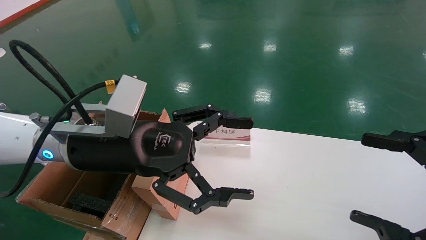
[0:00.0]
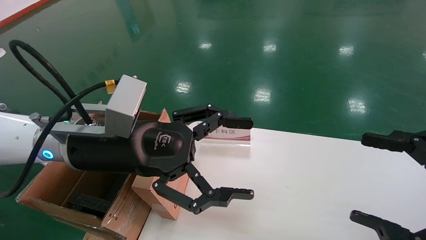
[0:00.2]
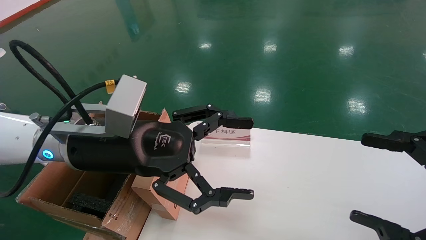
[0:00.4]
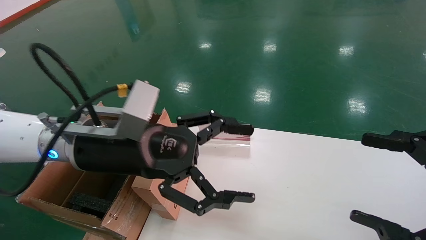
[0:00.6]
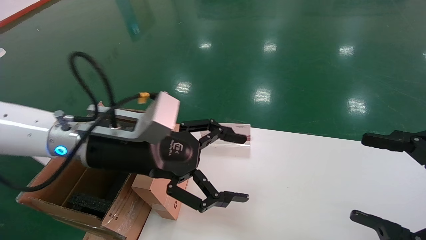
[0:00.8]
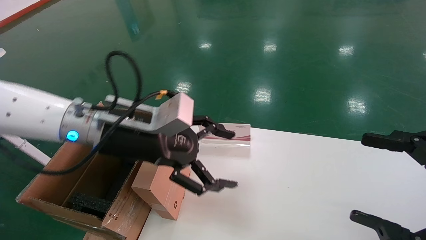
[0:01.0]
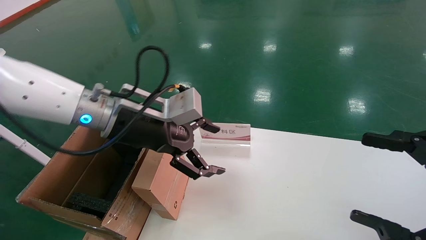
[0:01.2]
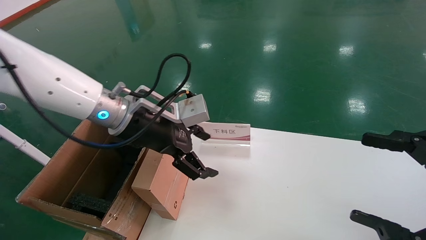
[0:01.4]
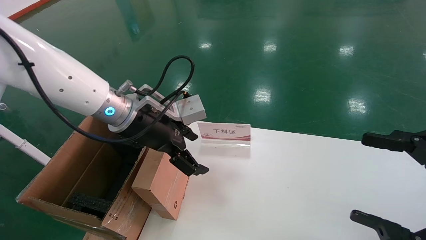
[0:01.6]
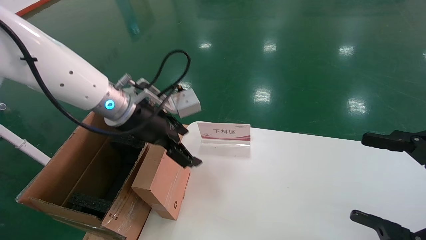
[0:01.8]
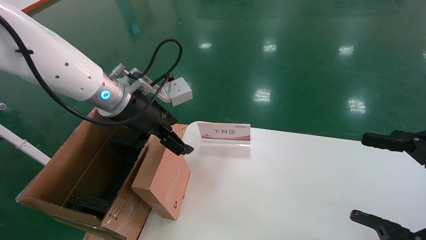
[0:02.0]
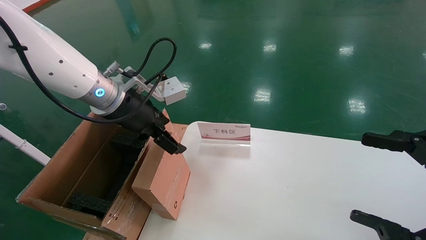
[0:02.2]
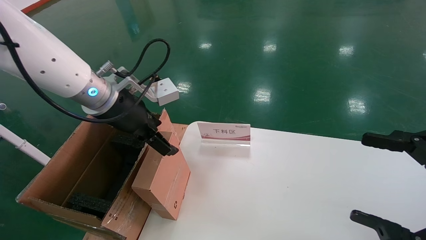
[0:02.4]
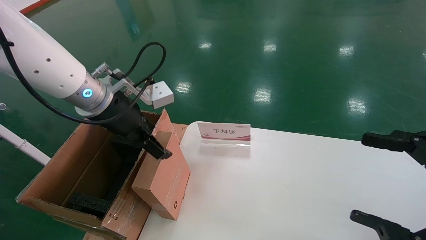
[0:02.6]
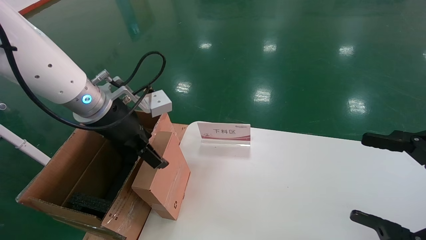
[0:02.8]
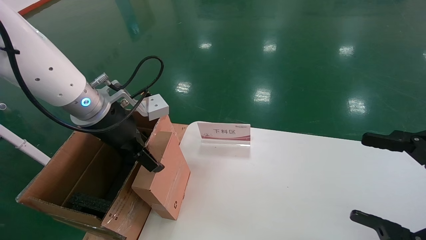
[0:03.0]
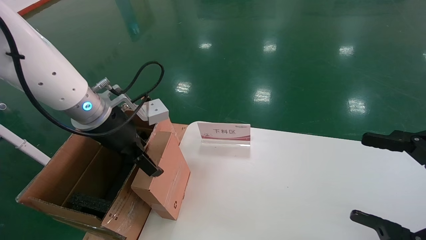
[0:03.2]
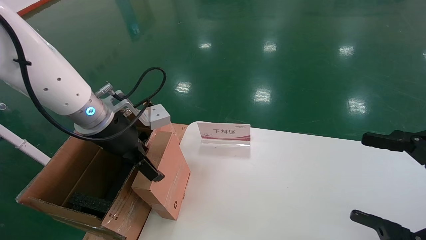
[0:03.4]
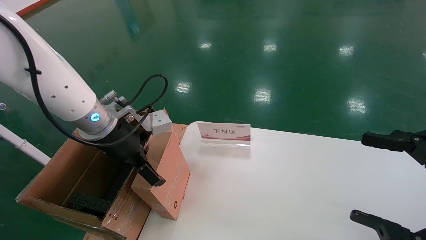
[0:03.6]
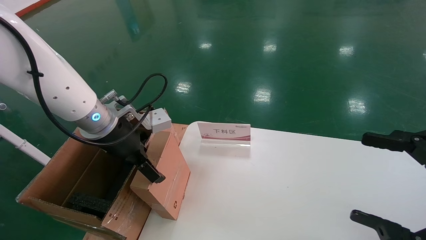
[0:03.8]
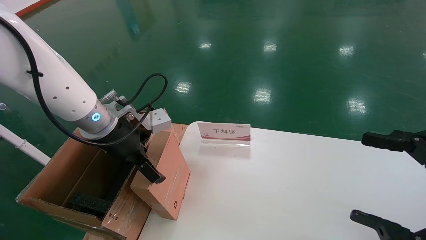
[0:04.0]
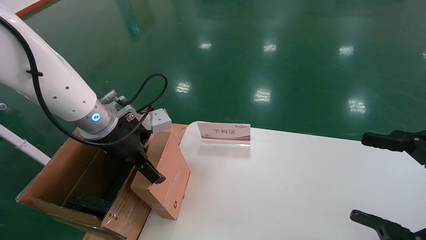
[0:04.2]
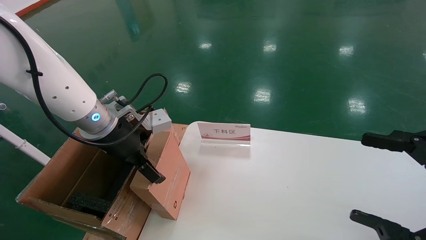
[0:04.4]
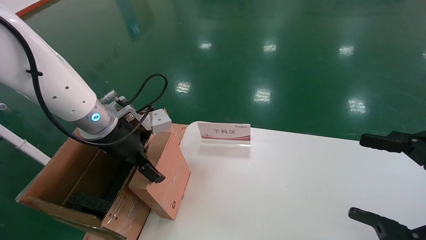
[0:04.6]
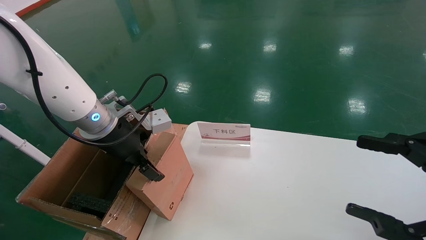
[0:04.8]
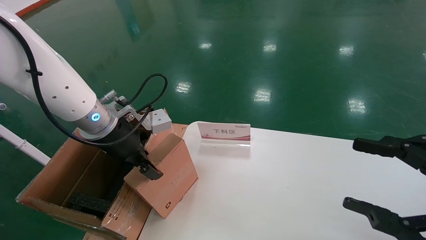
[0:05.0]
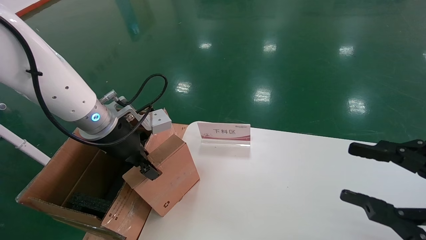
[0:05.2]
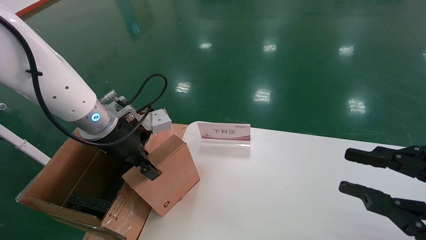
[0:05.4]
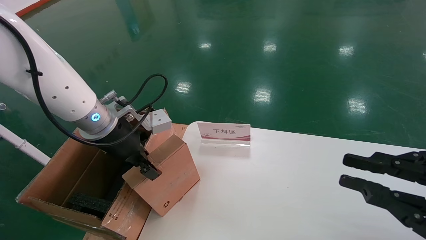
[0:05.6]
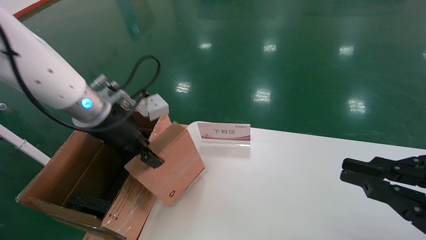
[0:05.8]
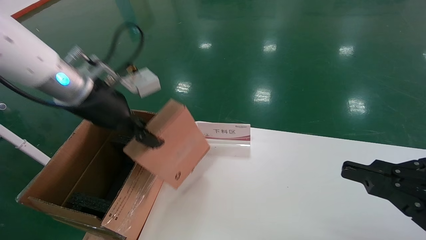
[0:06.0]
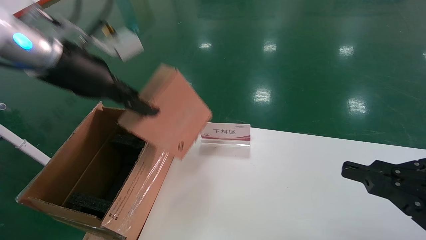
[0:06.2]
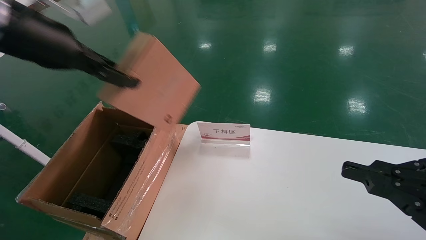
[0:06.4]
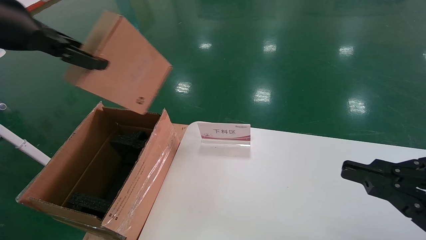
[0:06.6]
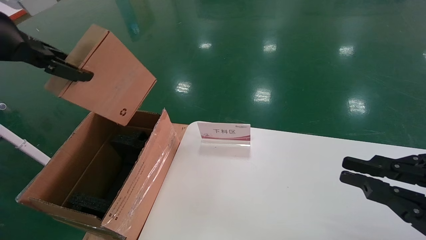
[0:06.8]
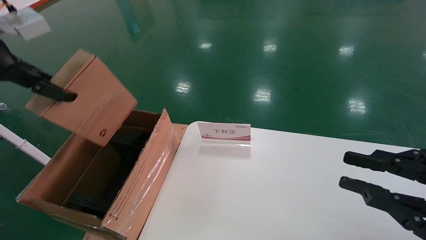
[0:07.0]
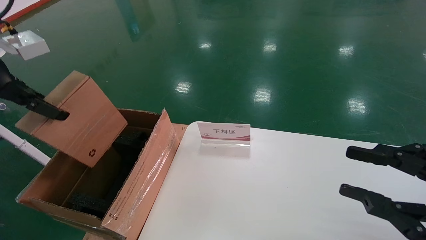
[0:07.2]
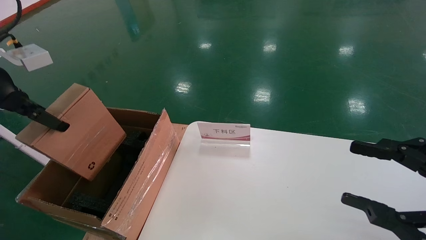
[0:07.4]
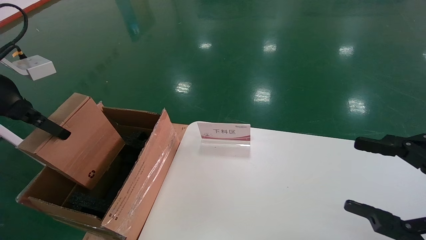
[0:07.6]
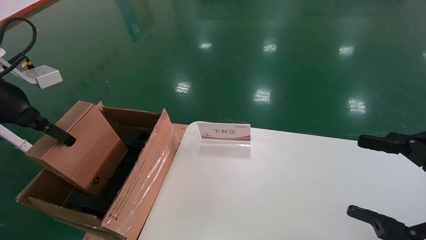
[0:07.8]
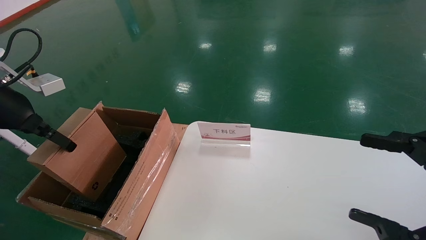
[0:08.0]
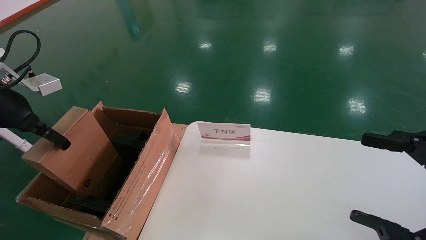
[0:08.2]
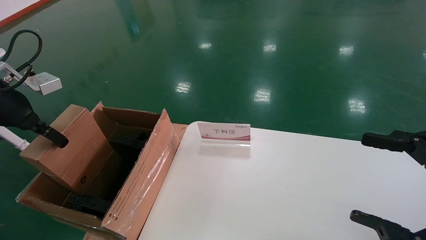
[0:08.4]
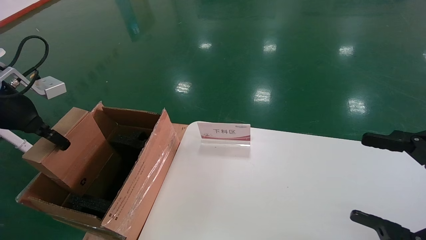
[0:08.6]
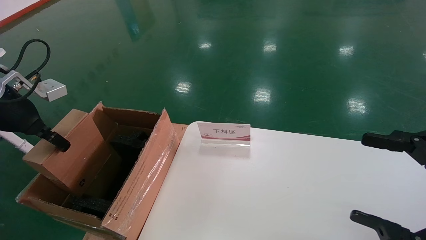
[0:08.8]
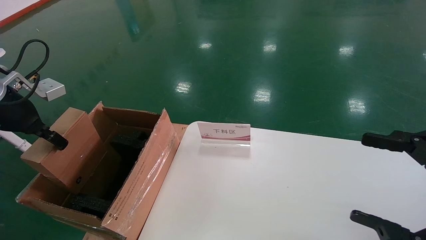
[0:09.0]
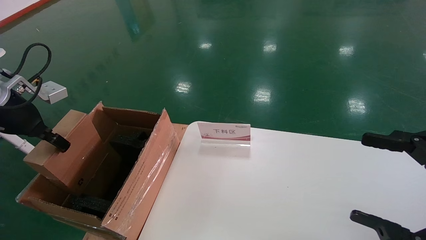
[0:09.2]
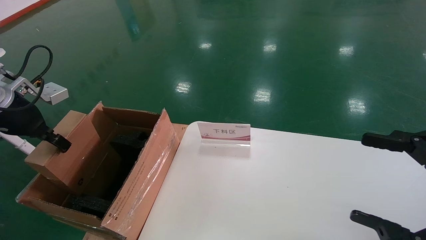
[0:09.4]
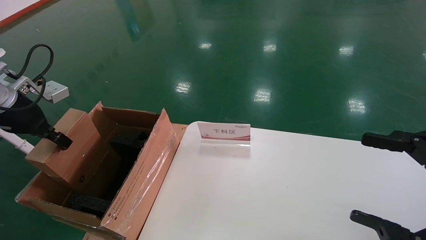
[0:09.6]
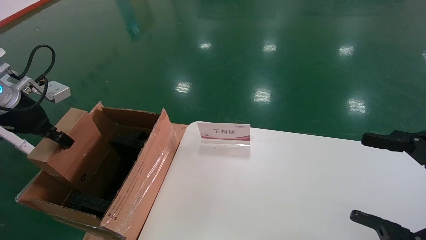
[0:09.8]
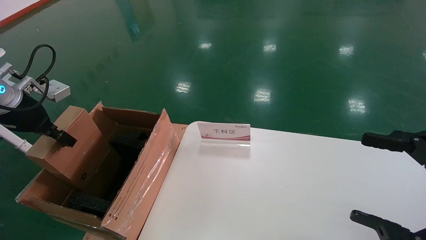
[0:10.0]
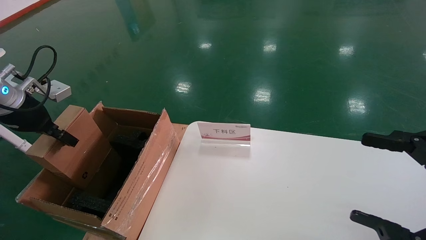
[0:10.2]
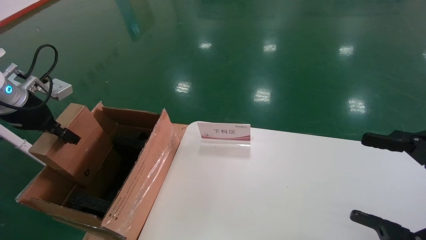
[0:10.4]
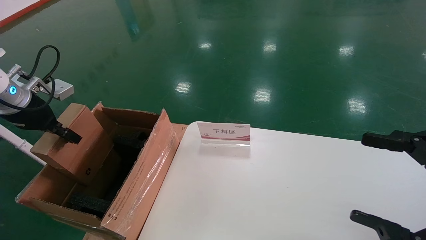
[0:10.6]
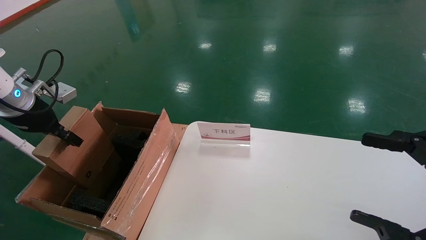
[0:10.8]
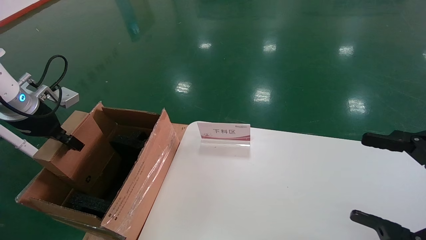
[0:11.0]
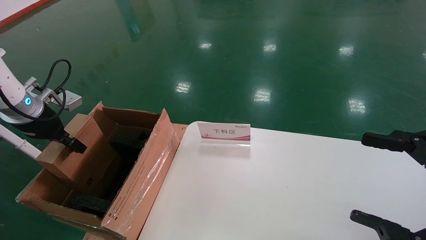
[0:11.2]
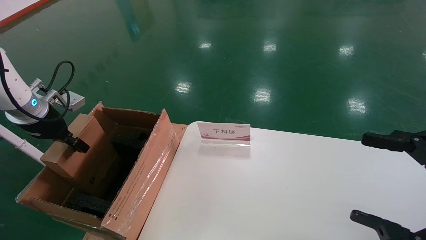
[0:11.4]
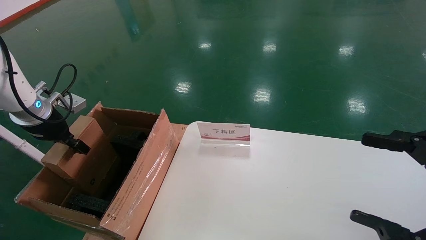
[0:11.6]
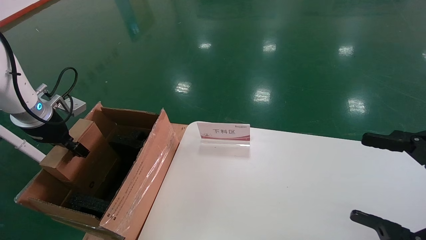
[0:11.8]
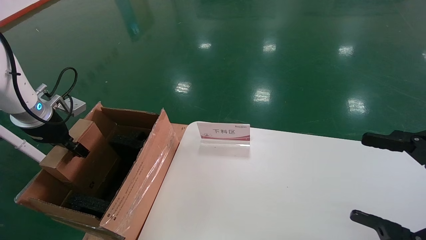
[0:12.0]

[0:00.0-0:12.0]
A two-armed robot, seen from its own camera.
Task of the whole recording: pick up the small cardboard box and load it into the large cardboard box.
Step, 0:01.0 to 0:05.0: Pick up the mouse and power cord box.
0:00.0 to 0:01.6: The left gripper heads forward, covering some 10 cm.
0:03.0 to 0:04.4: There are only small adjustments of the grippers.
0:04.4 to 0:06.0: The right gripper closes. Meanwhile the left gripper goes some 10 cm upward, and closes its fingers.
0:06.0 to 0:07.6: The left gripper heads to the left and backward, covering roughly 15 cm, while the right gripper opens its fingers.
0:07.6 to 0:09.0: The left gripper moves downward, about 5 cm. Meanwhile the right gripper opens its fingers.
0:09.0 to 0:10.4: There are only small adjustments of the grippers.
0:10.4 to 0:12.0: The left gripper shifts by roughly 5 cm.

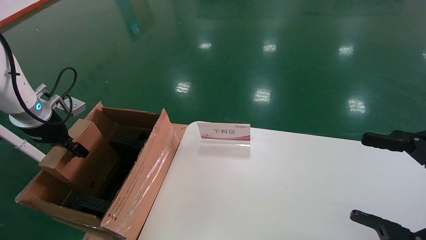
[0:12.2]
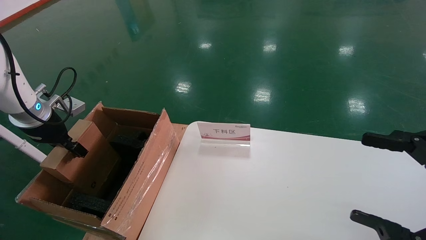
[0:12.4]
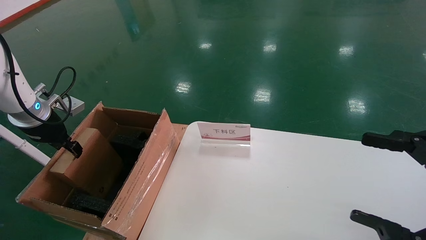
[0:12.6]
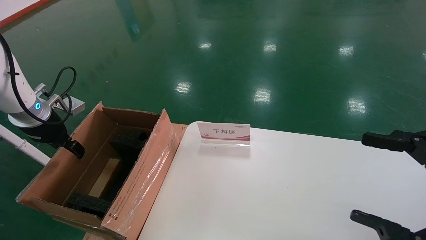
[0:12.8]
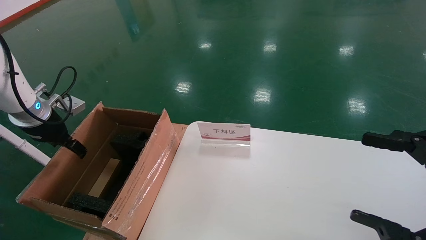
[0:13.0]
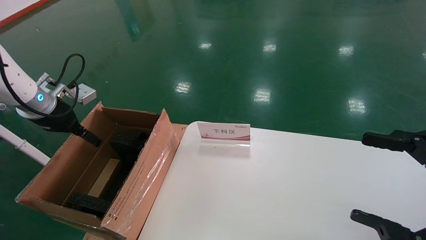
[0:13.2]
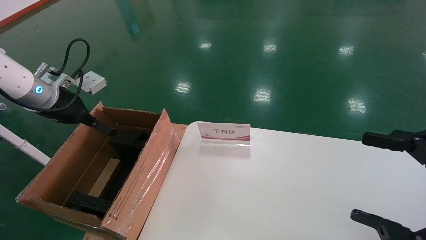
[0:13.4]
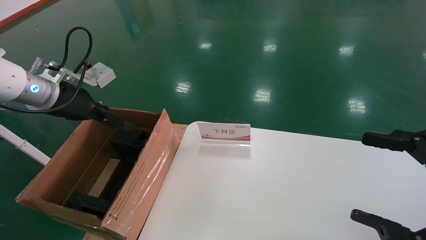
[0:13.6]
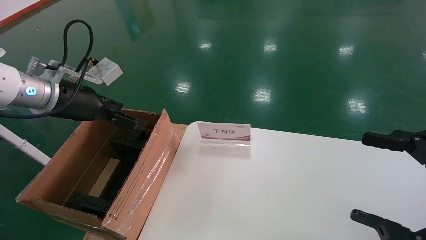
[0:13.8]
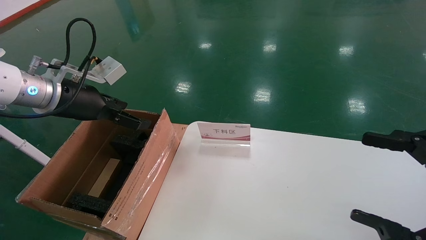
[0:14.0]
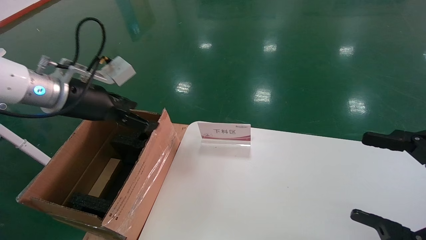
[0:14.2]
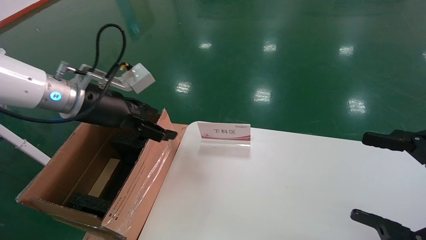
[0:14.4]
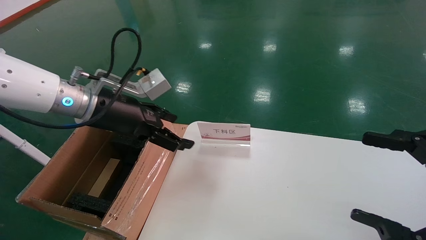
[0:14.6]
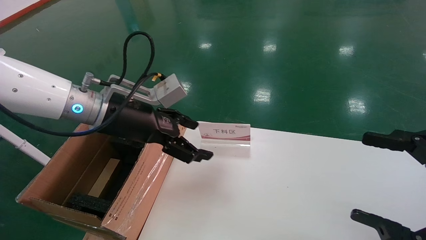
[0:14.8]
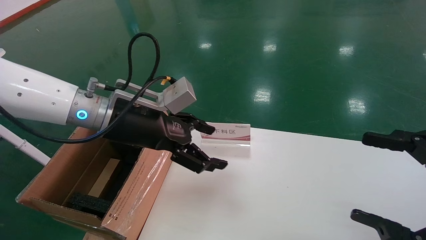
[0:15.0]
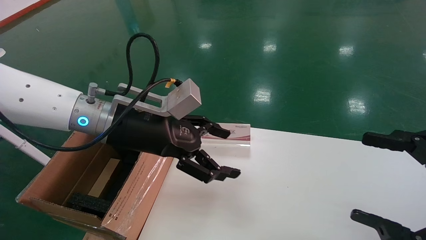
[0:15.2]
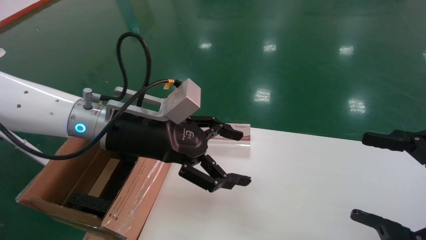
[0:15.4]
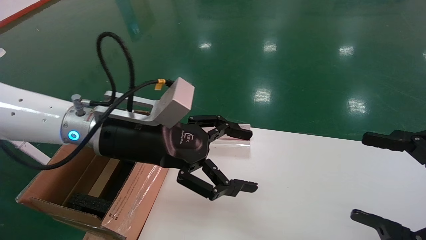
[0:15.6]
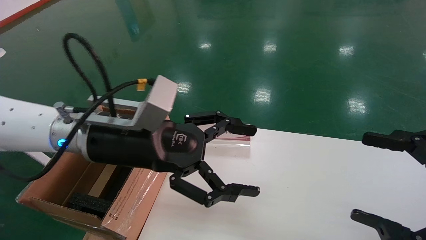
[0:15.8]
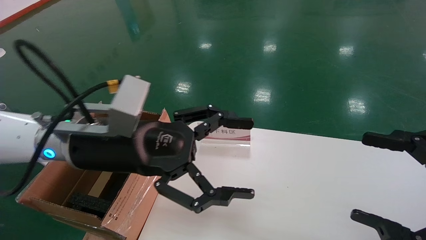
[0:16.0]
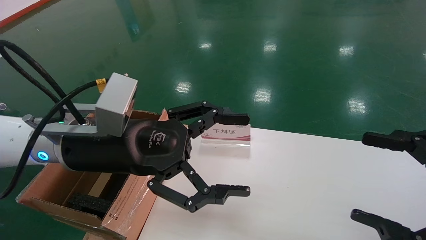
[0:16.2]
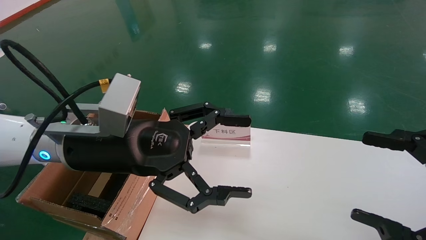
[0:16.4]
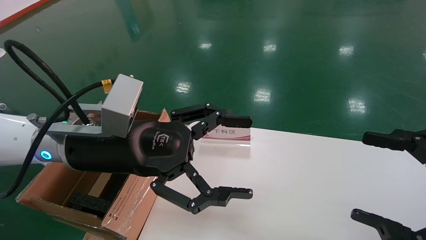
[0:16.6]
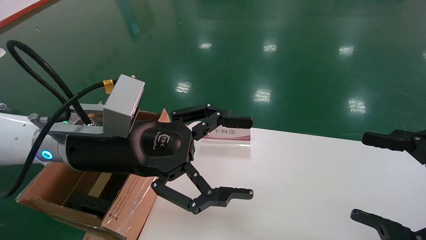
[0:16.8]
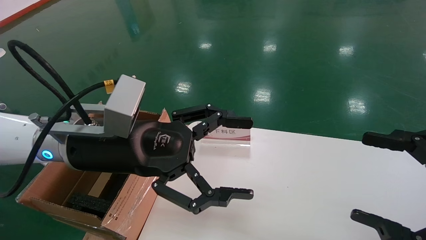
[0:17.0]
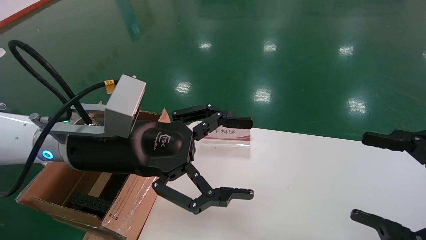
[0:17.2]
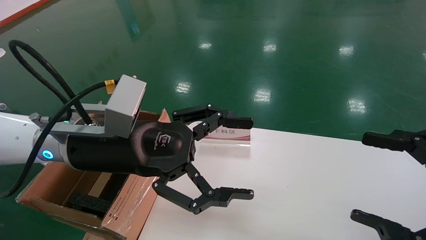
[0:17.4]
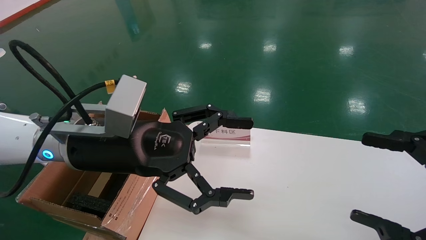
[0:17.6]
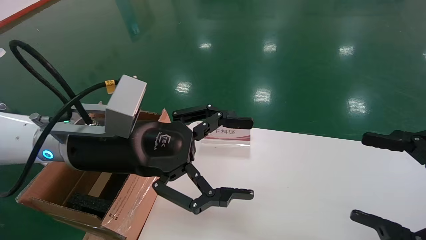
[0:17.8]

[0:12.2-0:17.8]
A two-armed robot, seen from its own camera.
Task of the whole recording: pick up the small cardboard box and load it into the large cardboard box.
0:12.2 to 0:13.6: The left gripper is displaced to the right and upward by about 10 cm, and opens its fingers.
0:13.6 to 0:15.0: The left gripper heads to the right, covering approximately 15 cm.
0:15.0 to 0:16.4: The left gripper travels backward by some 5 cm.
0:16.4 to 0:17.8: Both grippers stay put.
